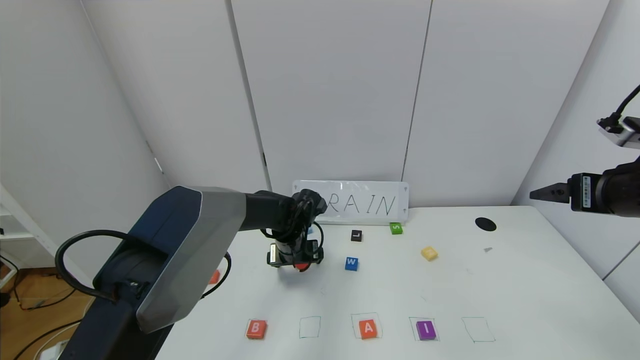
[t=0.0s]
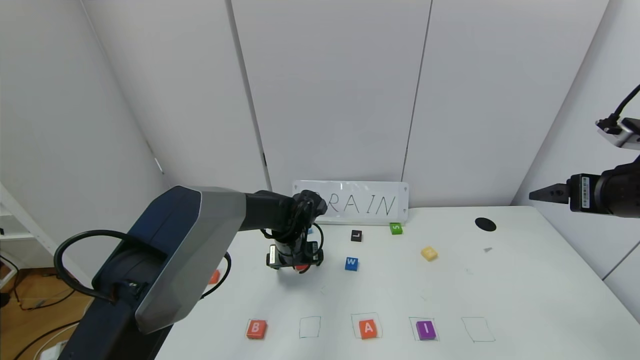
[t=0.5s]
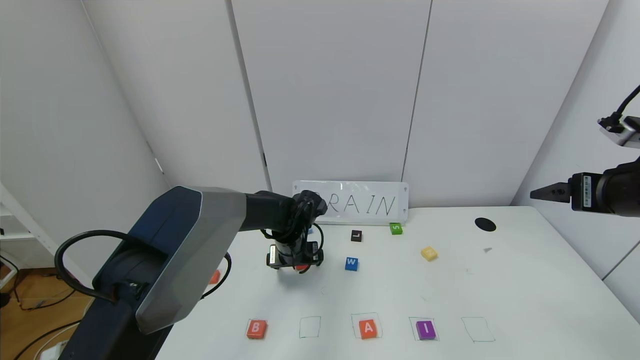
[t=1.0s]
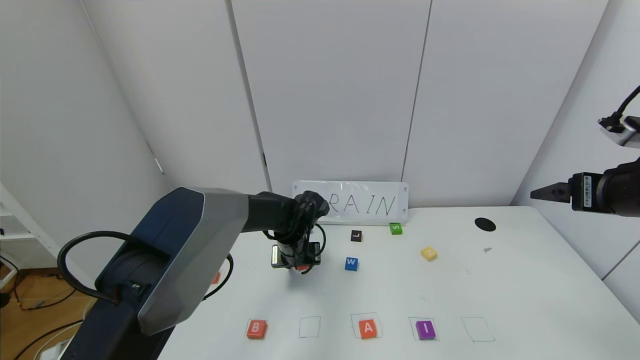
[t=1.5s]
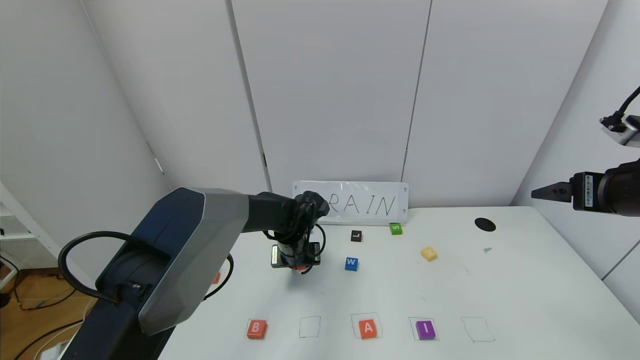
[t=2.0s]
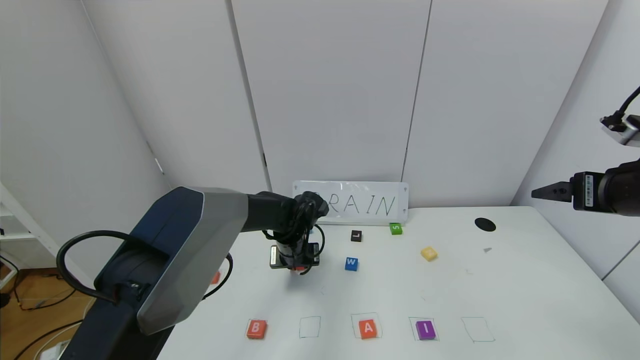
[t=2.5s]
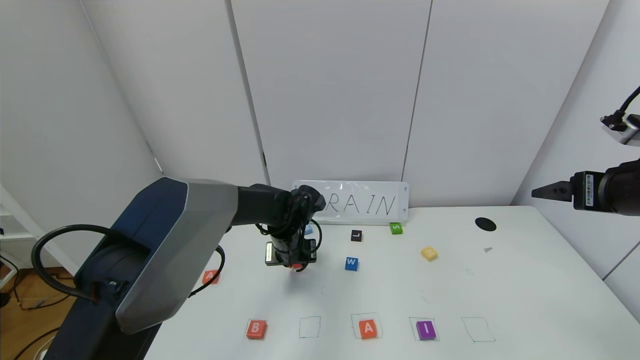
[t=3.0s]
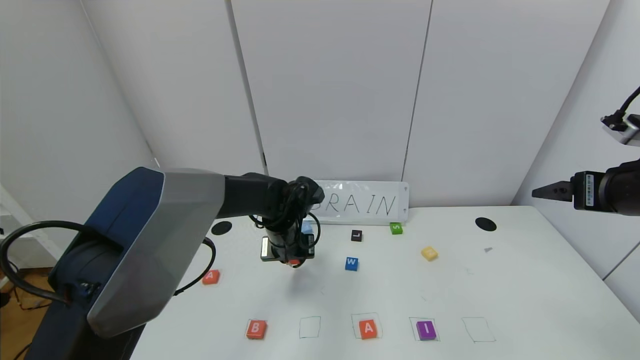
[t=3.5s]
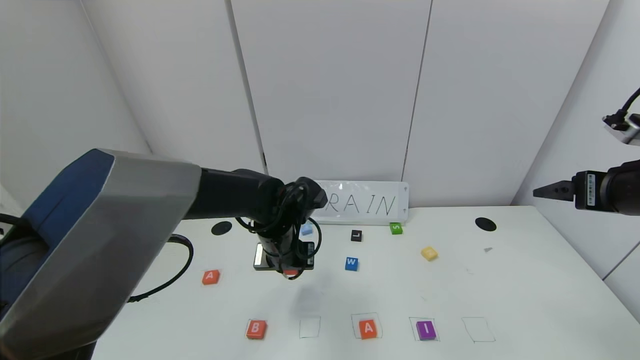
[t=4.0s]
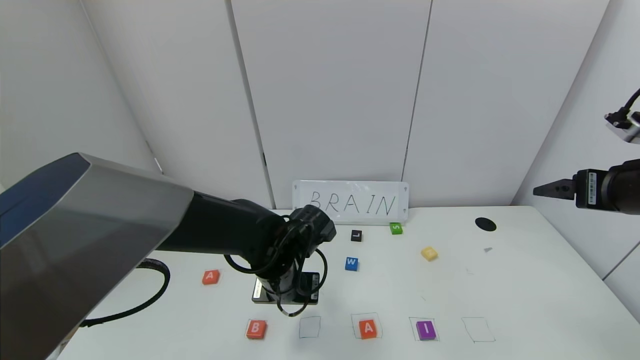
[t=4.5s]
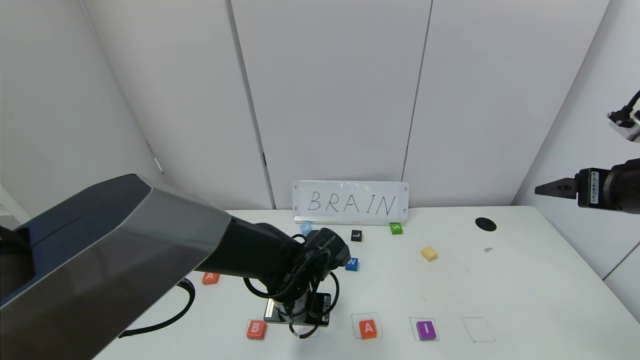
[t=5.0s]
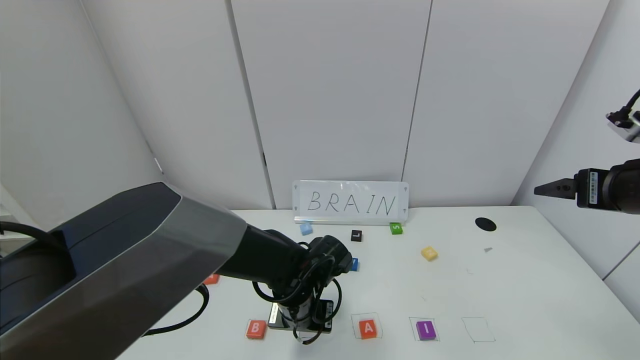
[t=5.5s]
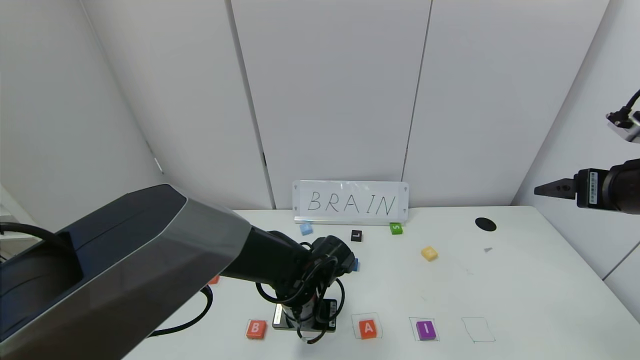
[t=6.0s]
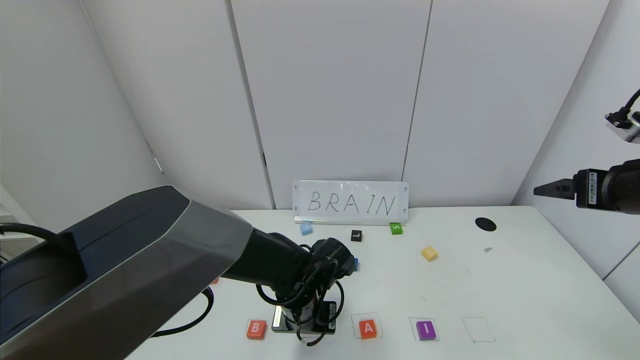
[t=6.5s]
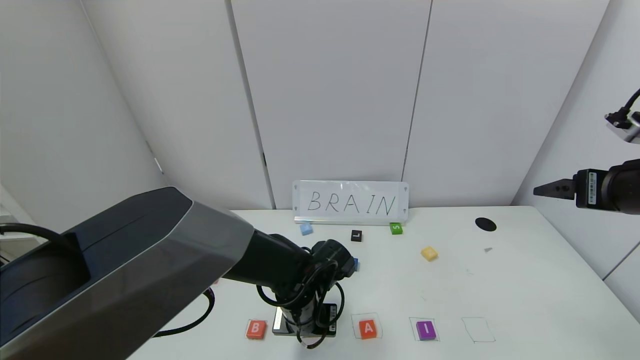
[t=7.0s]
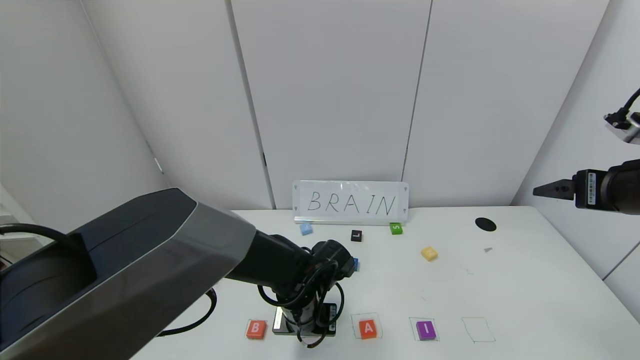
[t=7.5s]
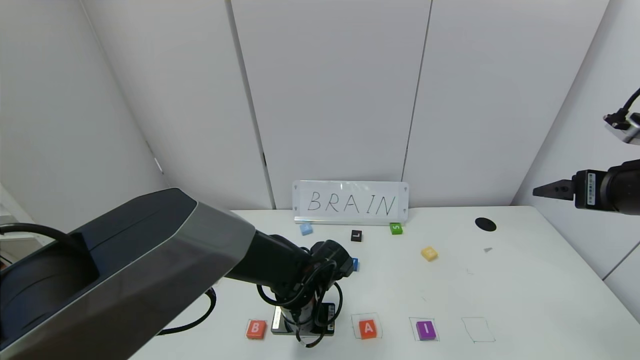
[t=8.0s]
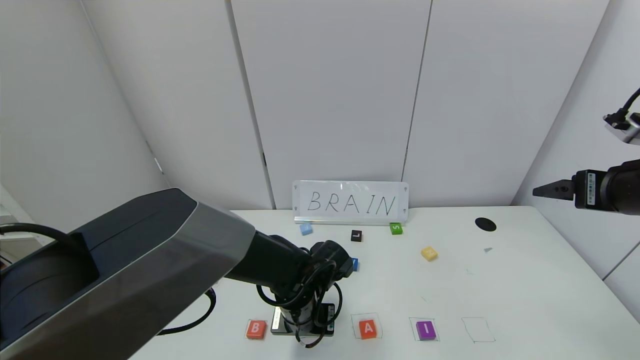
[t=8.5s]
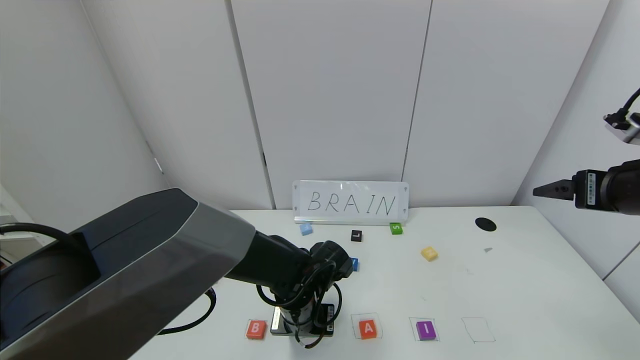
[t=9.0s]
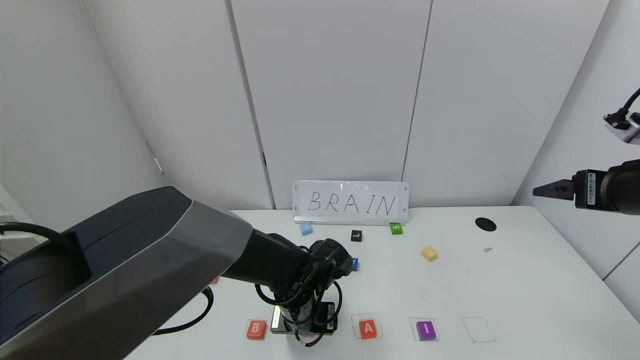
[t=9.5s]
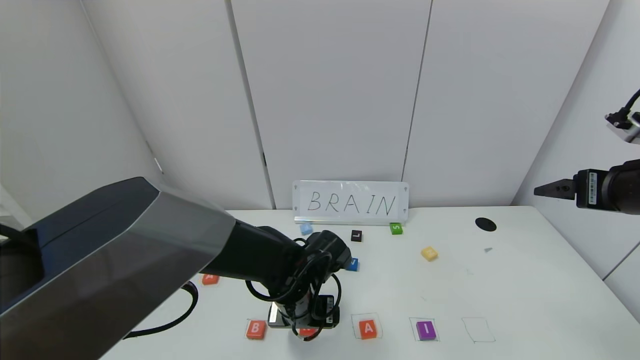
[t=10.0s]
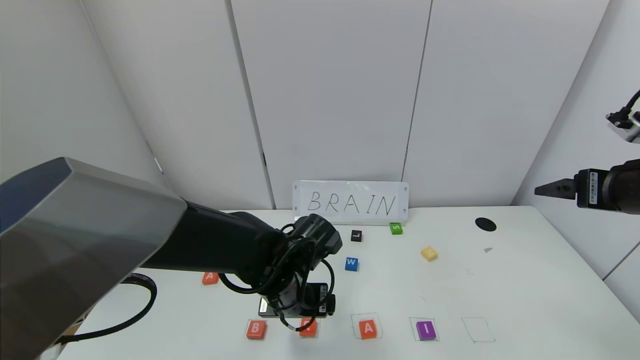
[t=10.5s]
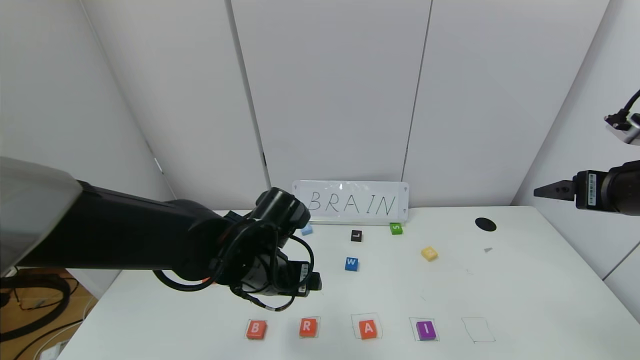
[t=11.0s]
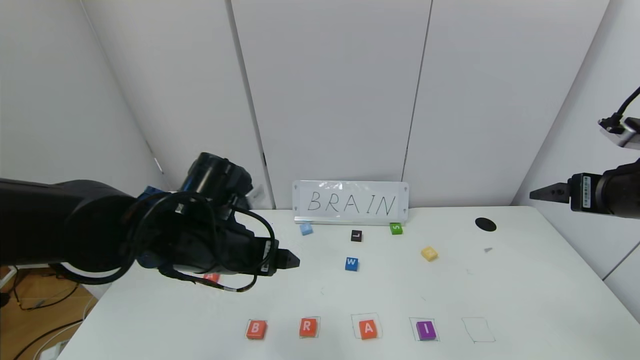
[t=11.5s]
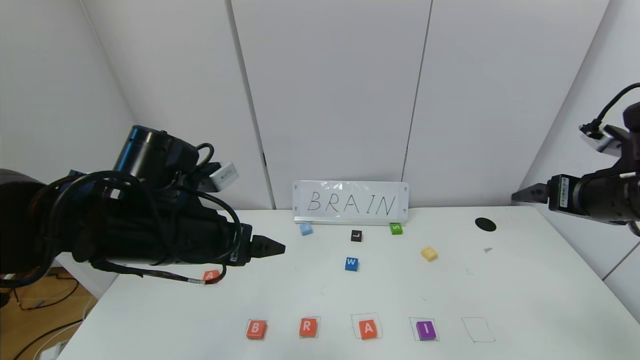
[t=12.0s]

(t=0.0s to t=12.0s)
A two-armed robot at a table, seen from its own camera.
Task of the whole recording: use the gripper to find blocks with the letters b, a, a, and i on the table and arrange them into BAAI, then find r and N and turn the arranged baai into brian.
Step, t=0.0s - t=9.5s: Place the block R in the second location.
t=0.0s - t=2.0s: The left gripper closes up.
t=2.0s - t=4.0s: The left gripper heads upward and backward, covering roughly 10 cm.
t=4.0s - t=6.0s: The left gripper goes about 10 cm downward and backward.
t=6.0s - t=8.0s: Both grippers stay put.
t=8.0s - t=10.0s: The left gripper opens.
t=10.0s - t=12.0s: The left gripper goes about 20 cm upward and to the left.

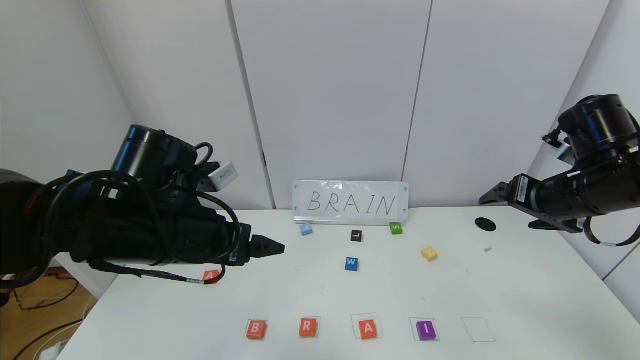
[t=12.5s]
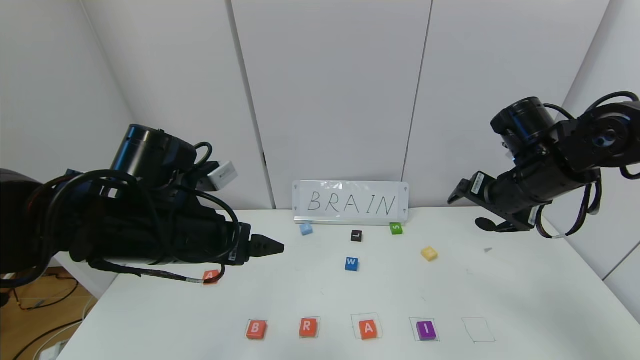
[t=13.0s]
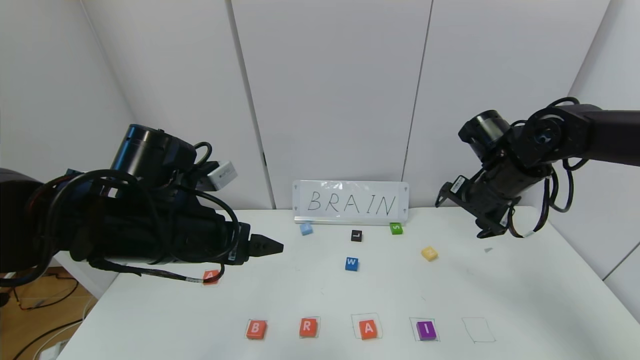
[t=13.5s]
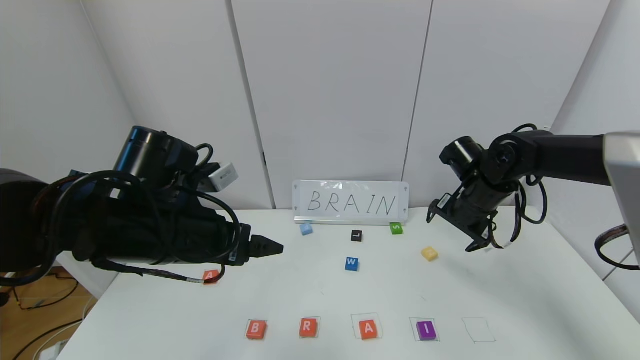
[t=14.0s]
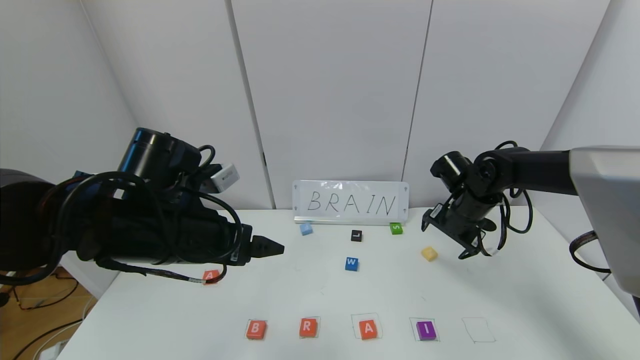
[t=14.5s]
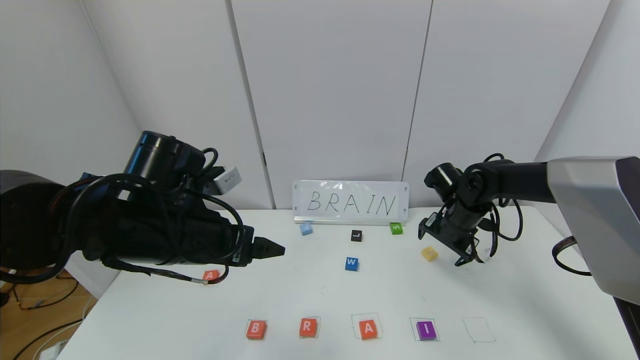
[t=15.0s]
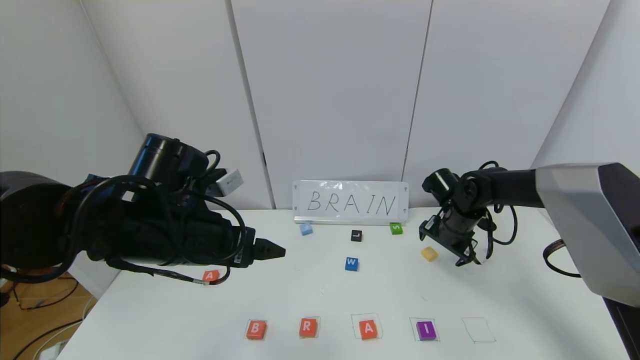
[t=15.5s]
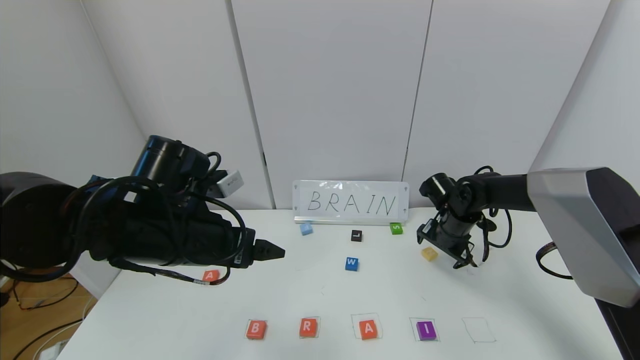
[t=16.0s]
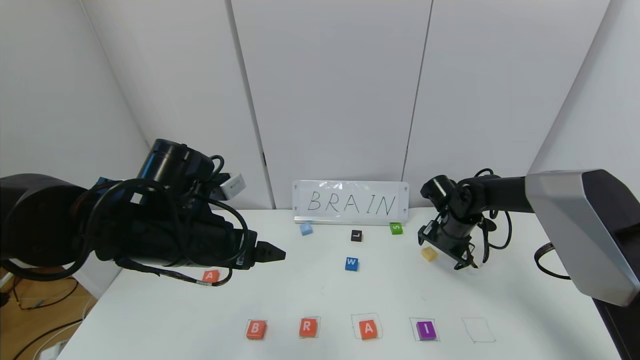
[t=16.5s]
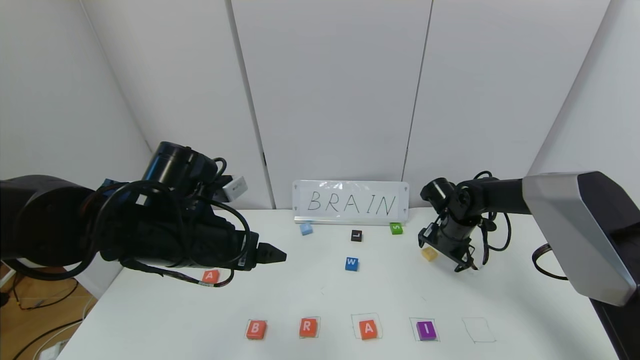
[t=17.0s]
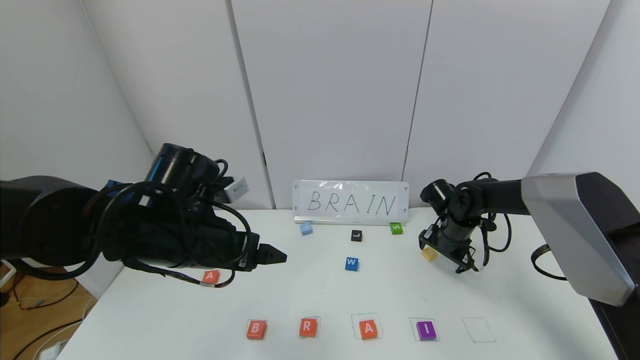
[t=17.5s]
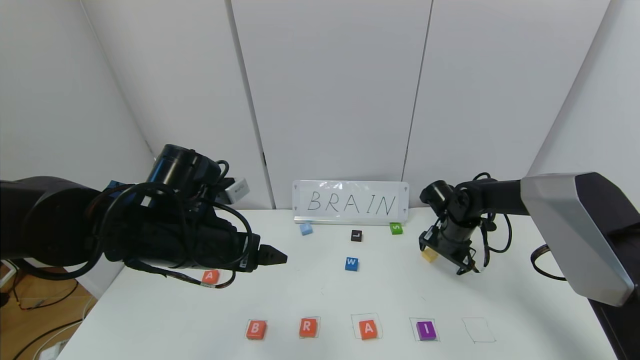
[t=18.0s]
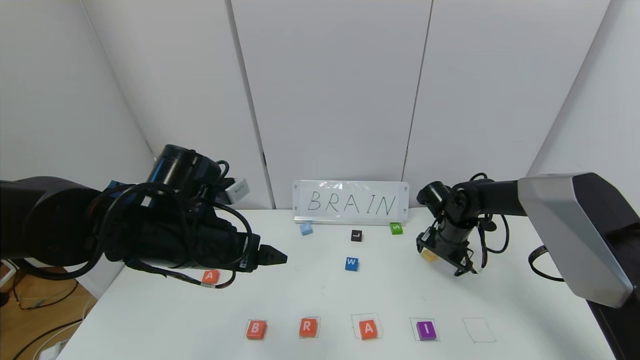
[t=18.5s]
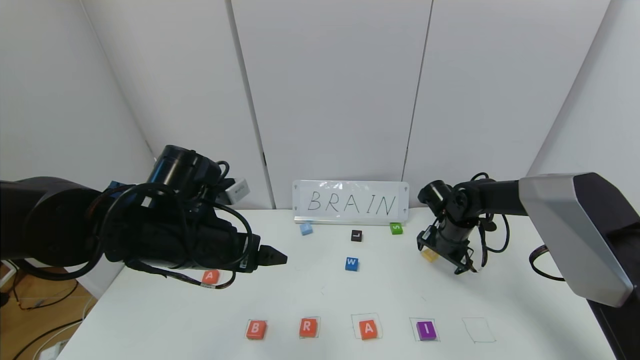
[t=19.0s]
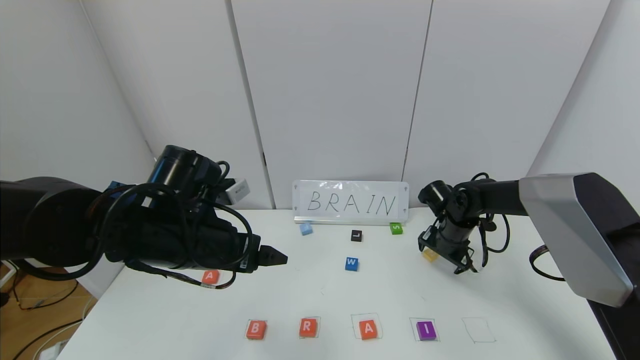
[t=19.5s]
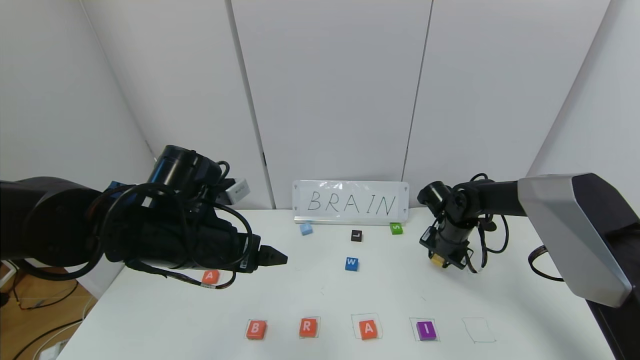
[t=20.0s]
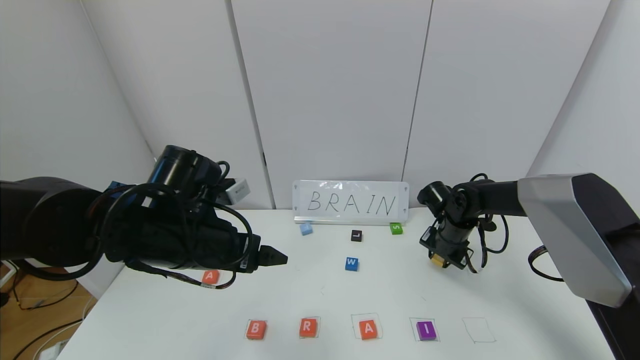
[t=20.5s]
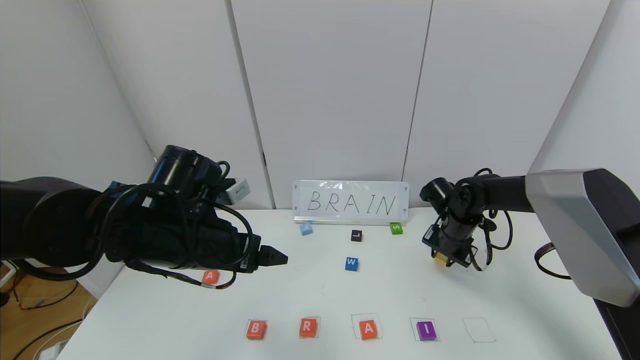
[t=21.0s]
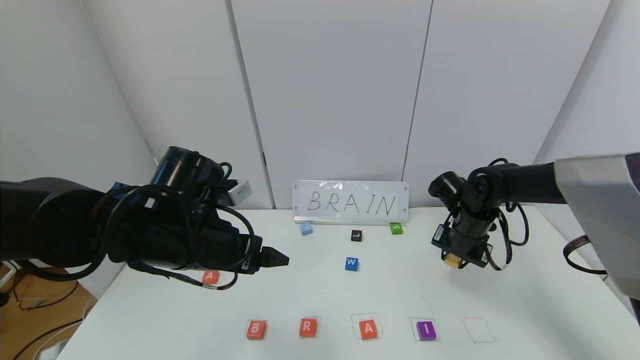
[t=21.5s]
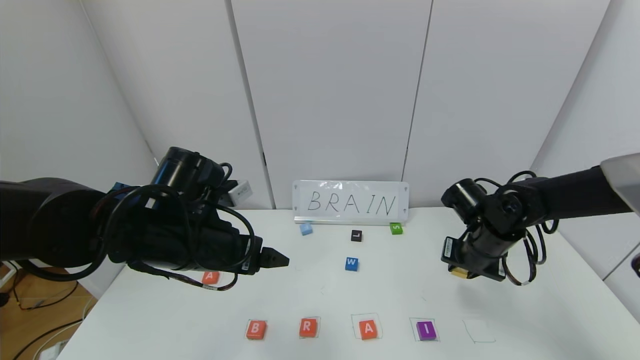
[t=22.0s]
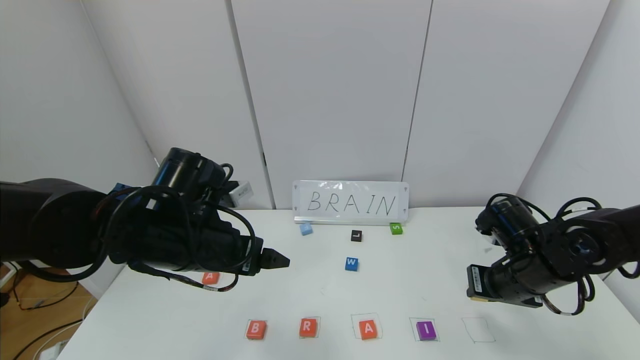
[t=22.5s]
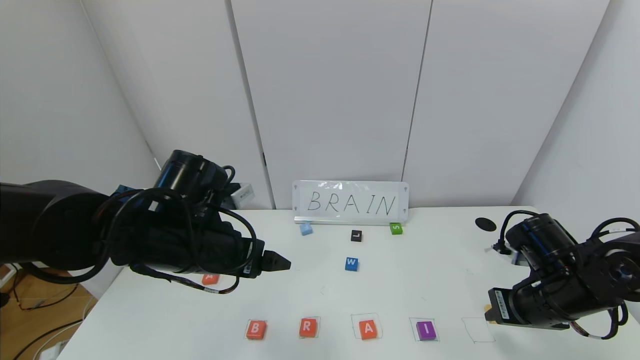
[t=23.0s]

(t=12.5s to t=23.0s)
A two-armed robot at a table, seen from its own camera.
Task of the whole recording: use the gripper to find blocks with the letters b, a, a, and i on the table and arrange them into BAAI, then find r and N and turn the arranged baai into brian.
t=12.5s - t=14.5s: The right gripper goes approximately 20 cm forward, downward and to the left.
t=14.5s - t=16.5s: The right gripper heads downward, covering roughly 5 cm.
t=16.5s - t=19.0s: The two grippers keep their place.
t=19.0s - t=21.0s: The right gripper closes its fingers.
t=21.0s - t=23.0s: The right gripper shifts roughly 20 cm backward.
